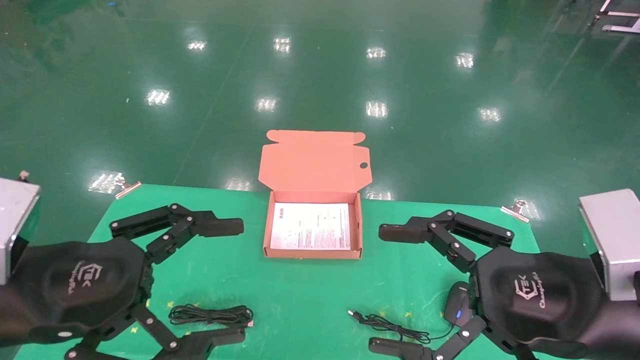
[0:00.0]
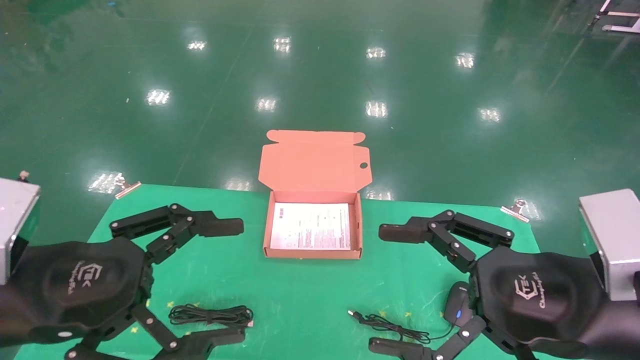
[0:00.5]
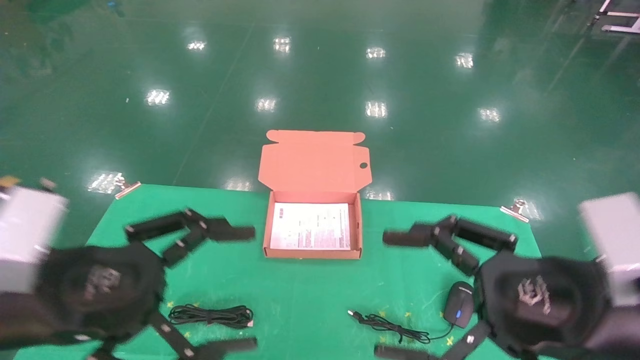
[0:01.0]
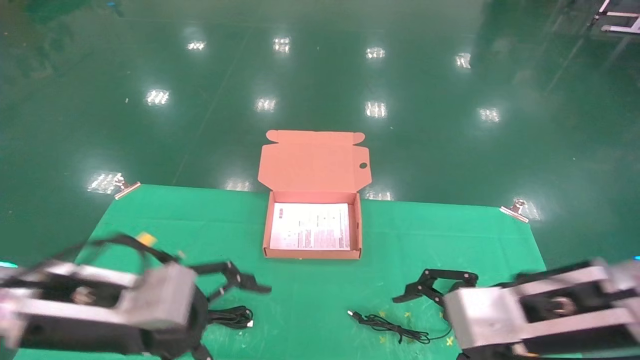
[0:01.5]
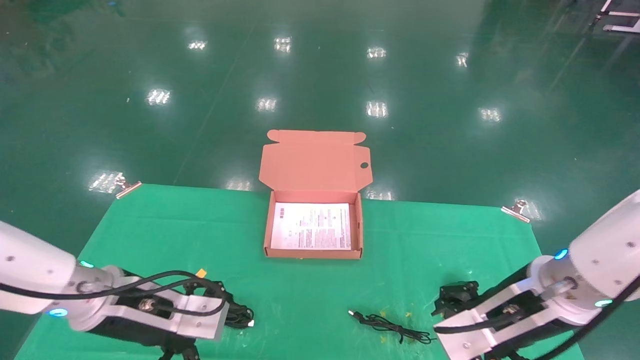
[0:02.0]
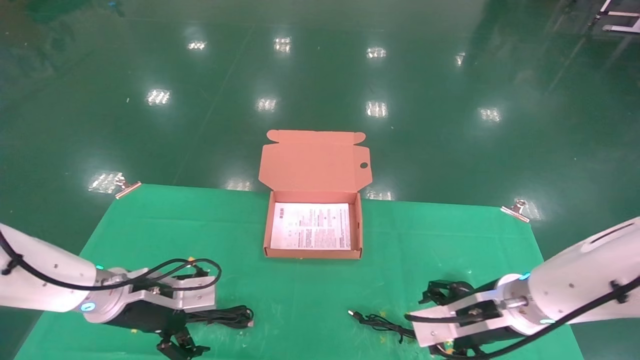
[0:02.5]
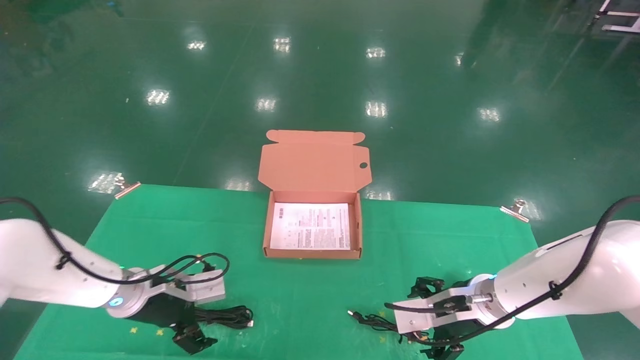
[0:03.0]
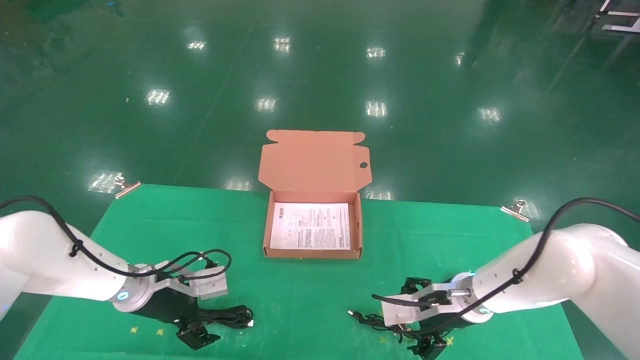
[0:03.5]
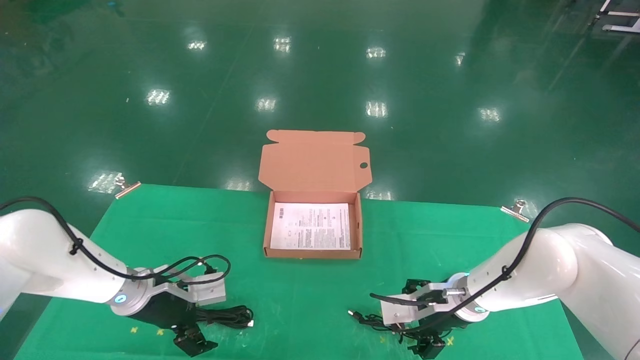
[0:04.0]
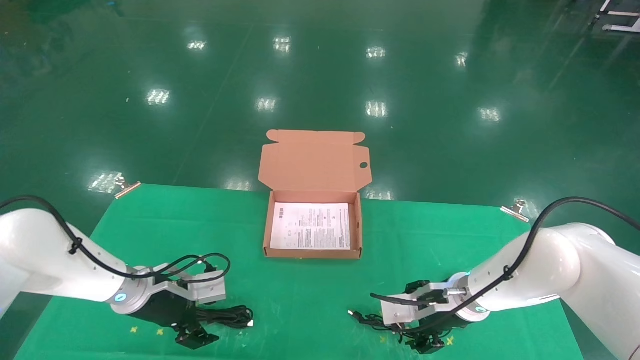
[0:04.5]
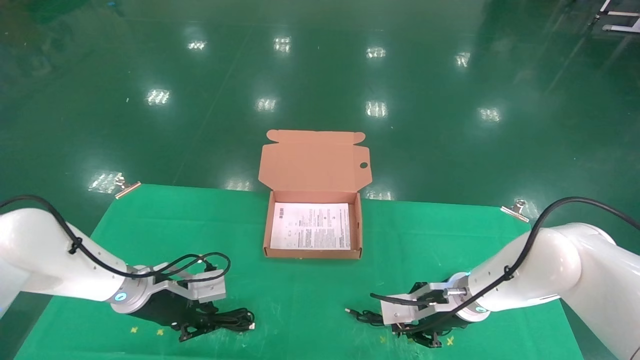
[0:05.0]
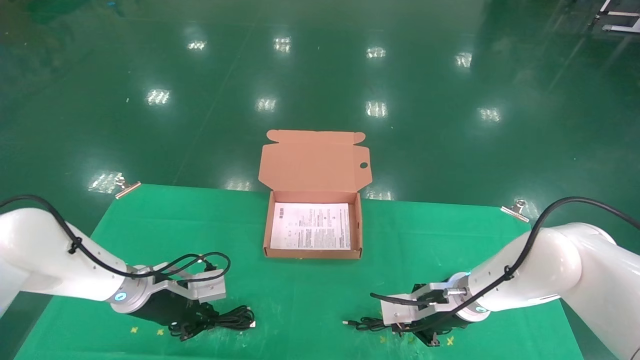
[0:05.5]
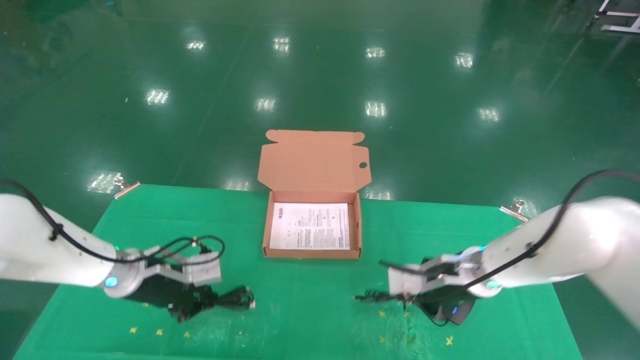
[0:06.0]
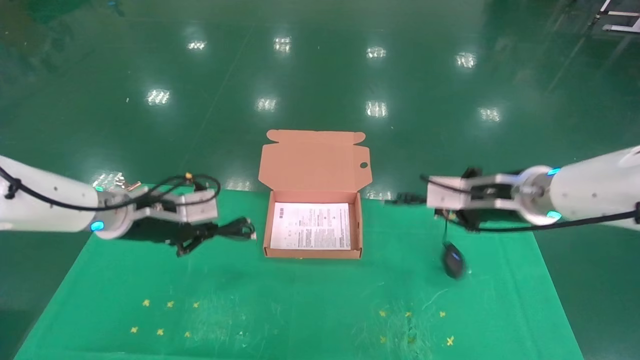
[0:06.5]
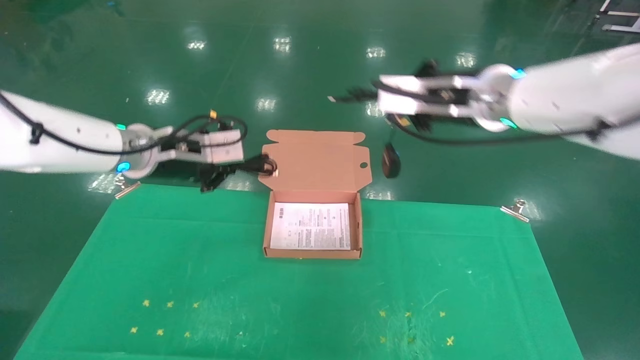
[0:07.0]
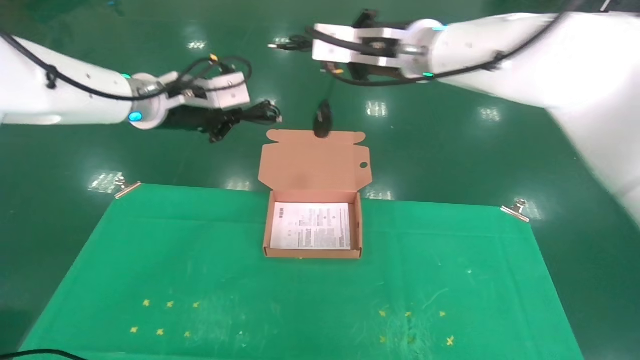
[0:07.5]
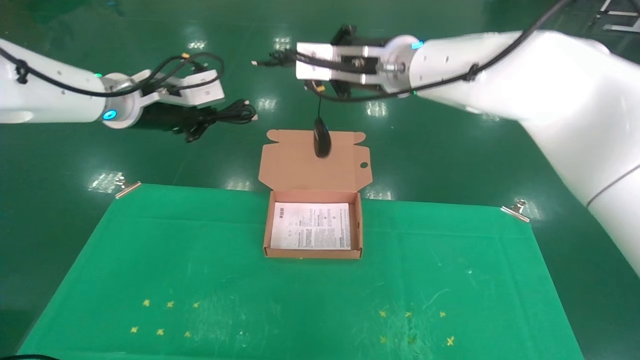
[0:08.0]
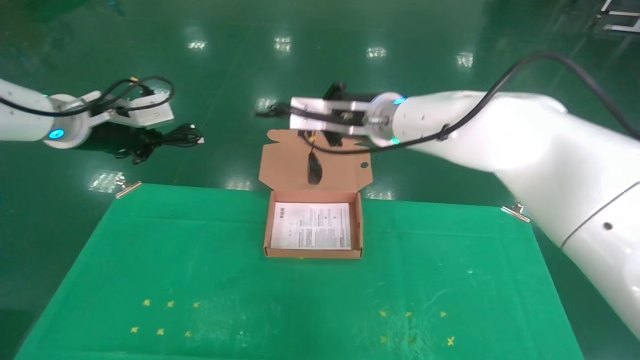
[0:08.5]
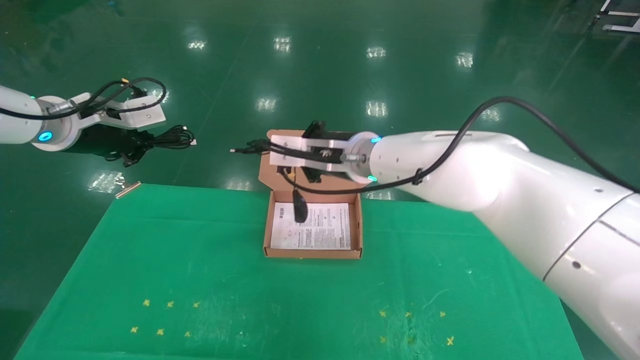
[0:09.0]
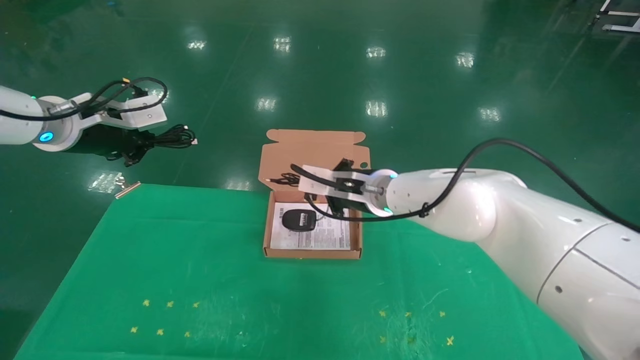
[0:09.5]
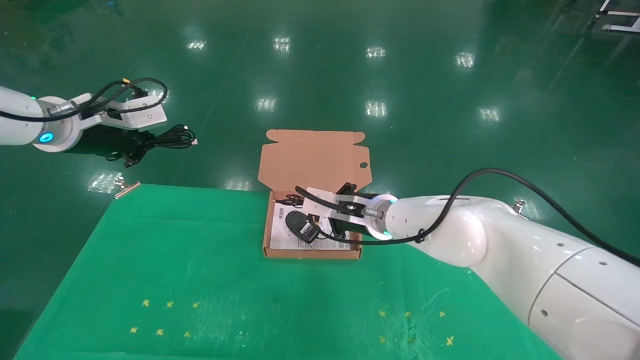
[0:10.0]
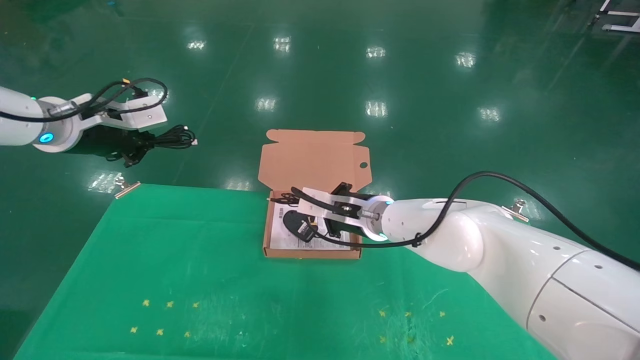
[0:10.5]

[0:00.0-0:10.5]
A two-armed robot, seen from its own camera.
Task of the whole recording: grasp data cable left put into box grasp mouse right put into box.
Step, 0:01.5 to 0:06.0: Grab and pick up both the mouse and power cord from the accessory packaging area at the same time.
0:00.0 to 0:02.0: The two grippers go some 15 cm forward and downward.
0:02.0 to 0:04.0: The grippers both shift forward and downward by roughly 15 cm.
0:04.0 to 0:06.5: Both grippers move upward, approximately 15 cm. The right gripper closes up; the left gripper closes.
0:06.5 to 0:08.5: The right gripper heads to the left and upward, covering roughly 20 cm; the left gripper is displaced upward by some 15 cm.
0:08.5 to 0:10.5: The right gripper goes about 15 cm downward.

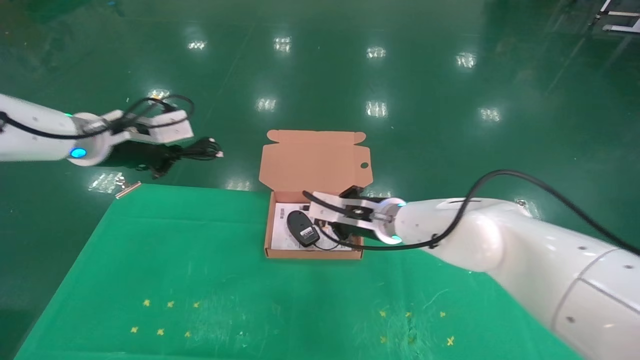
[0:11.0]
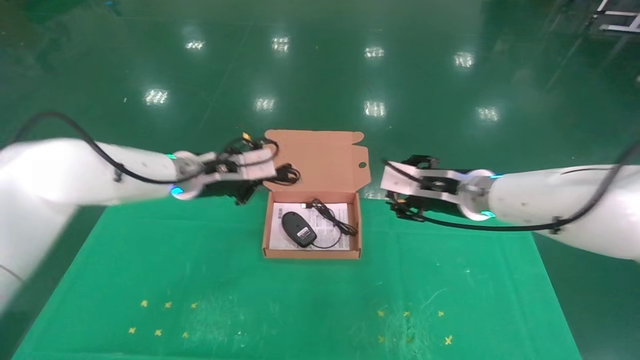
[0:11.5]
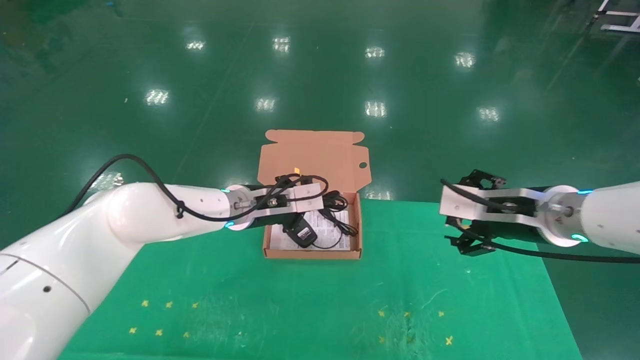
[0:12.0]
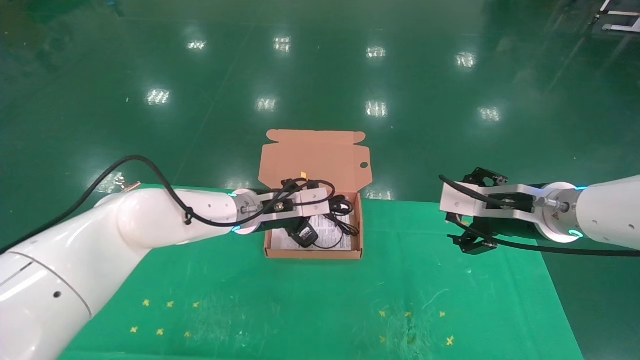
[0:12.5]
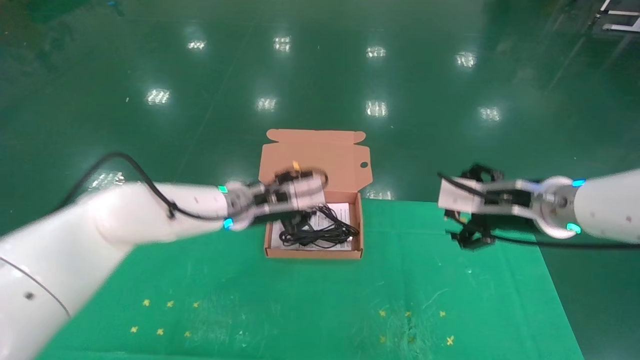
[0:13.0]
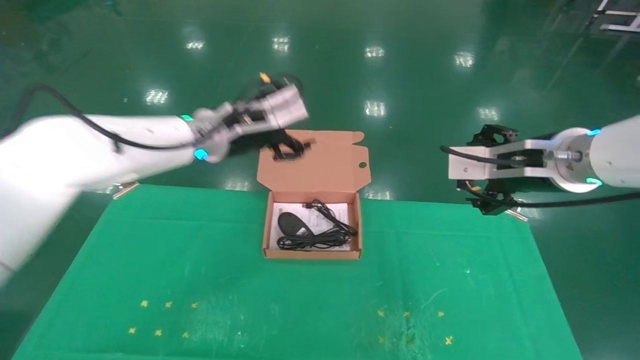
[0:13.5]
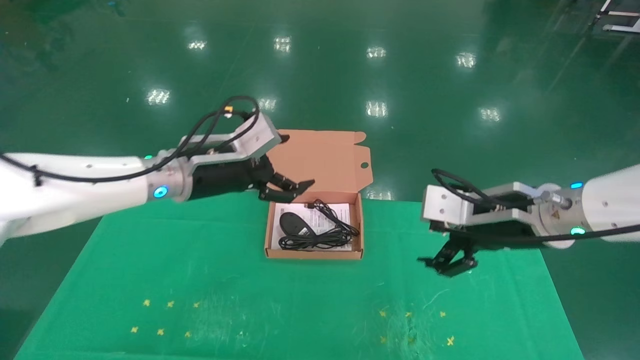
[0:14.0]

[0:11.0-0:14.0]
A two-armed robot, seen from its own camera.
Task of the whole recording: grasp data cable left put into box grasp mouse right put into box.
0:11.0 to 0:12.5: The right gripper is displaced to the right and backward by about 20 cm, and opens up, while the left gripper goes about 25 cm to the right and downward.
0:12.5 to 0:14.0: The left gripper shifts approximately 10 cm upward, to the left and backward, and opens up.

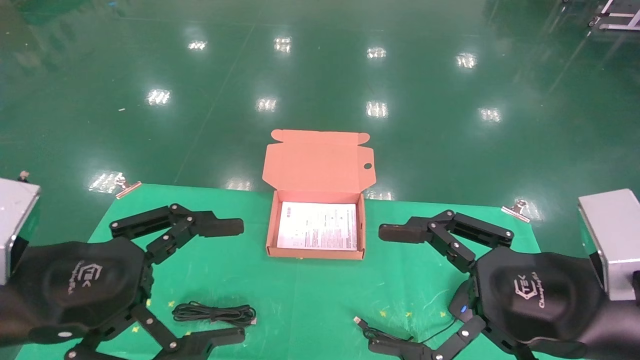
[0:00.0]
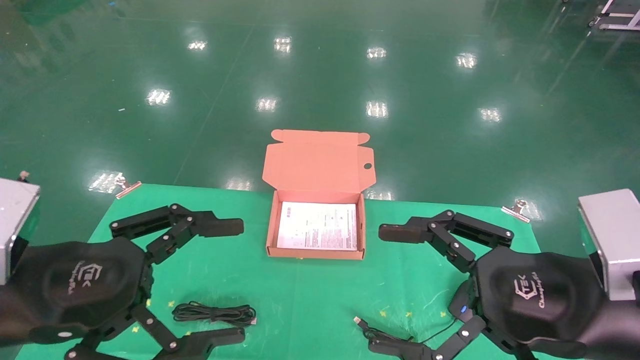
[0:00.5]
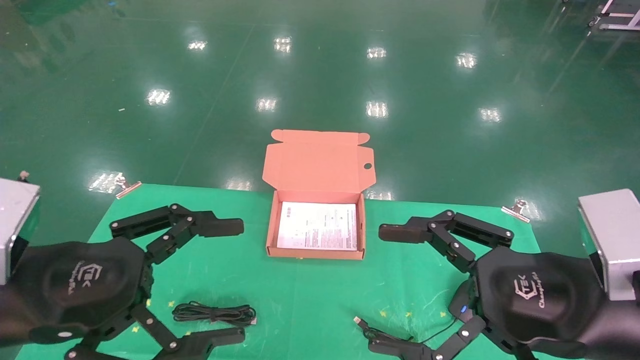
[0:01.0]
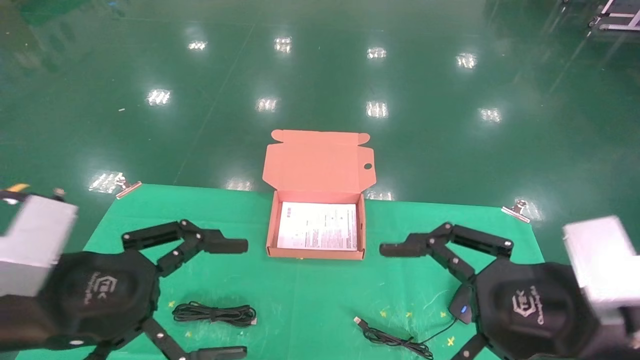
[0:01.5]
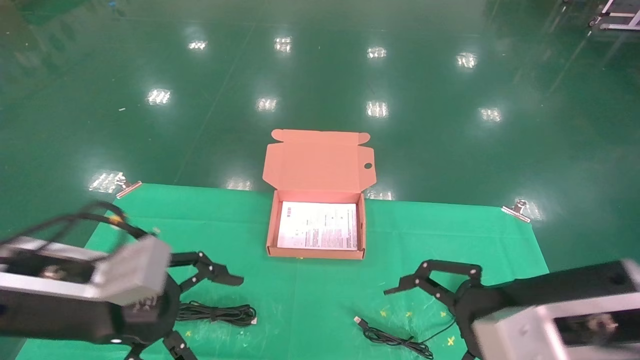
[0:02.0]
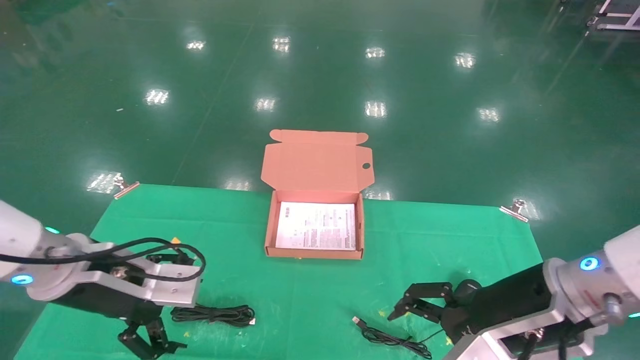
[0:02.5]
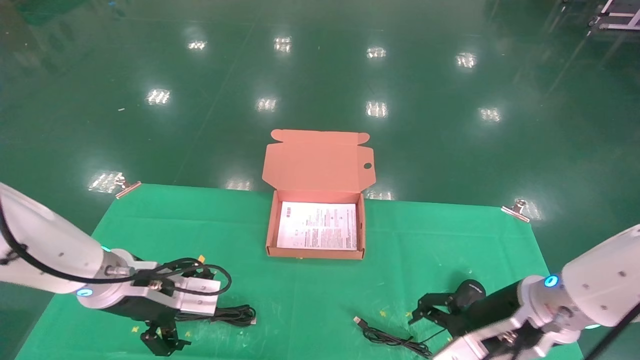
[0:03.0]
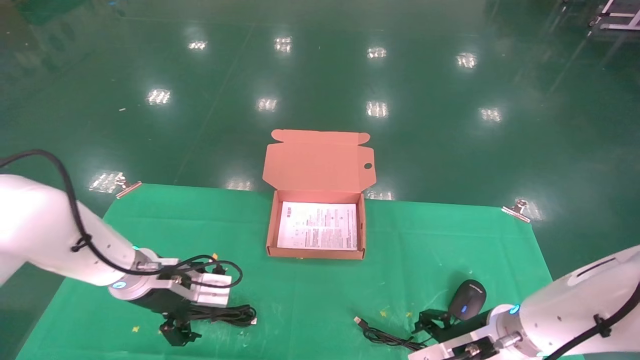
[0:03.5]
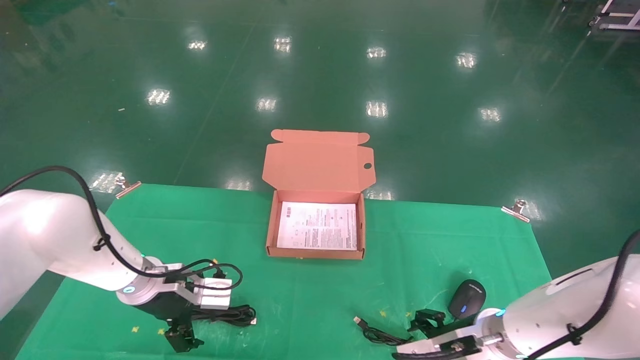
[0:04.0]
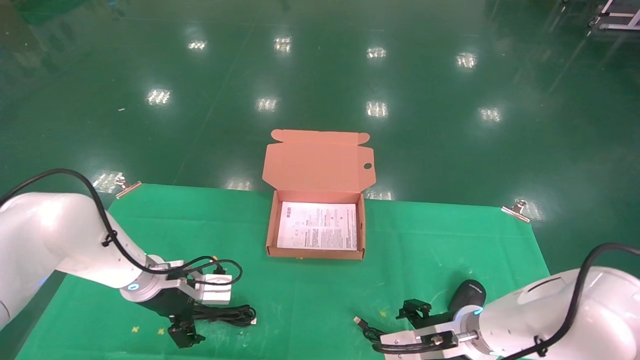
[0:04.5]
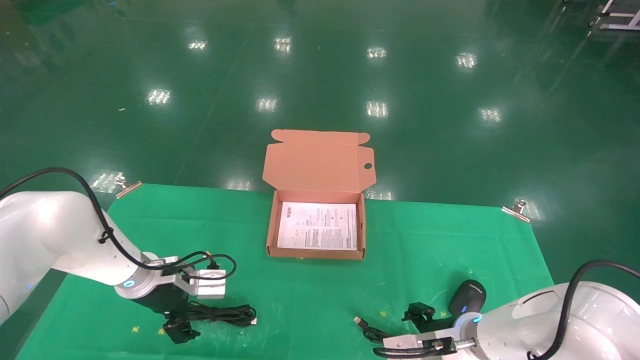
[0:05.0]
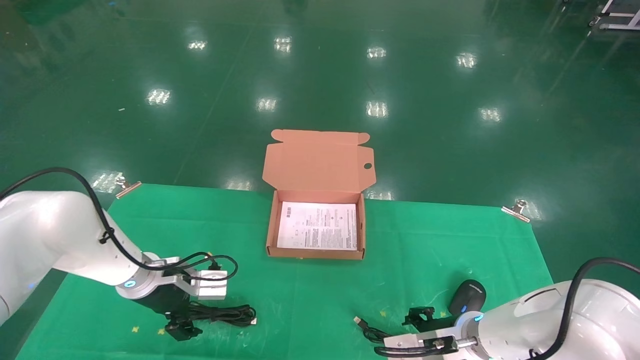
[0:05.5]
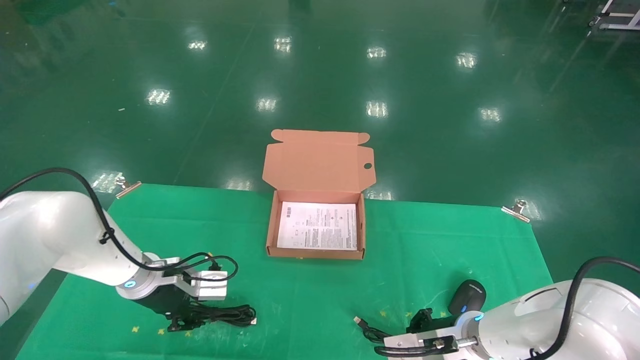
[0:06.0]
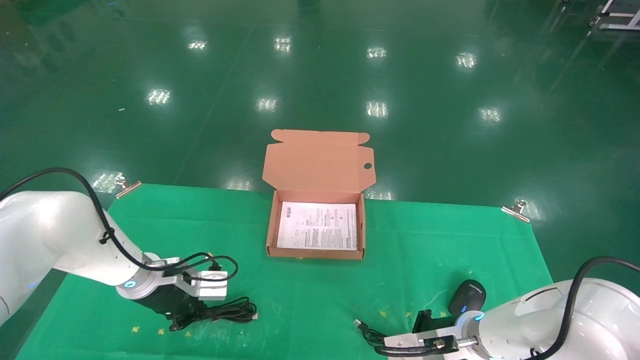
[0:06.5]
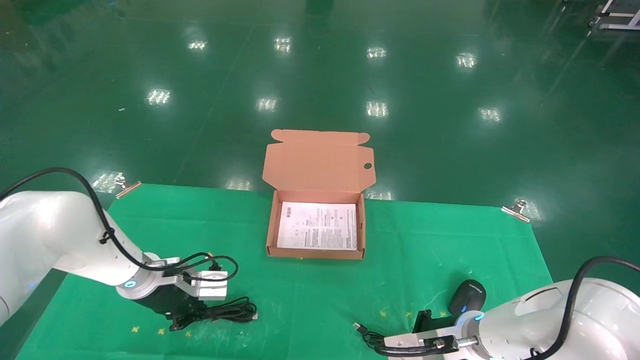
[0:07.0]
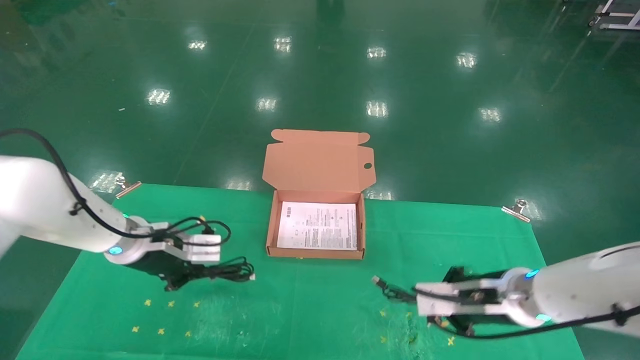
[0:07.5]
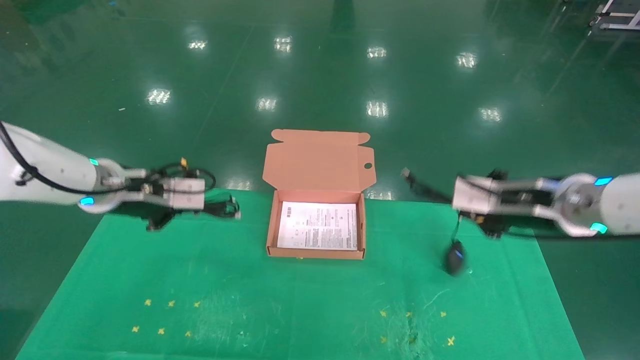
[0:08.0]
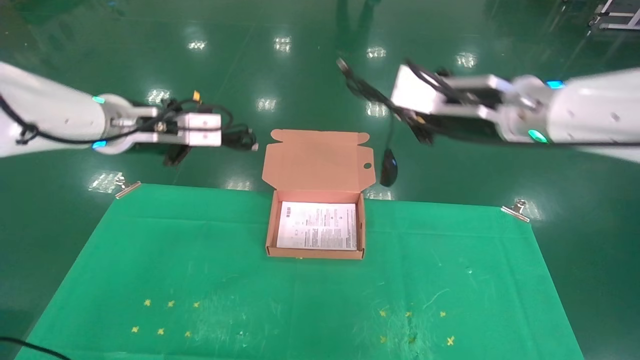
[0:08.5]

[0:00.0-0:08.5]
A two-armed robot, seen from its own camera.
Task of the whole recording: grasp data cable left put into box grasp mouse right put into box.
Step, 0:02.0 to 0:08.0: Grab and pick up both the mouse and power cord from the accessory packaging area at the same time.
0:00.0 to 0:02.0: The left gripper shifts by roughly 5 cm.
0:02.0 to 0:04.0: The right gripper travels downward and forward by approximately 20 cm; the left gripper goes approximately 20 cm forward and downward.
0:04.0 to 0:06.5: The left gripper closes, while the right gripper closes up.
0:06.5 to 0:08.5: The grippers both shift upward by approximately 30 cm.
